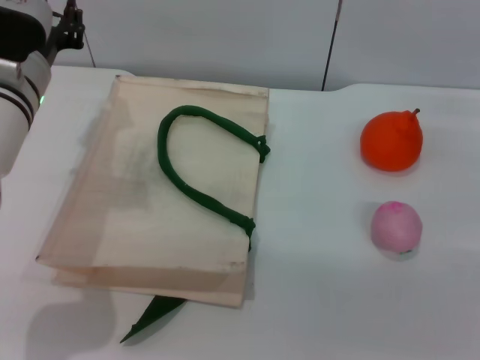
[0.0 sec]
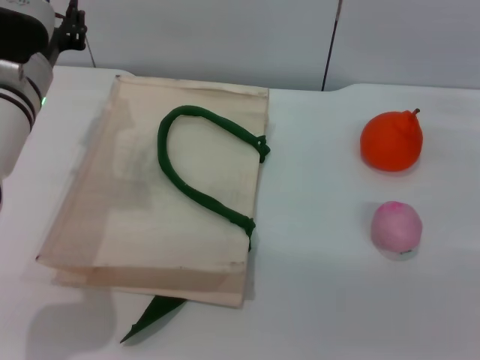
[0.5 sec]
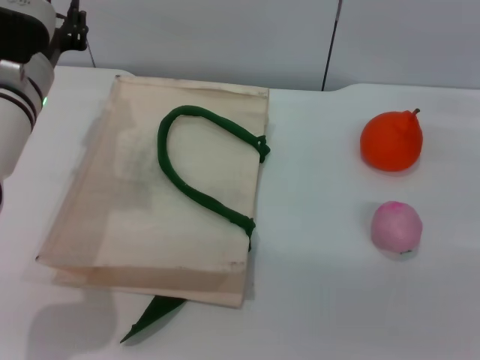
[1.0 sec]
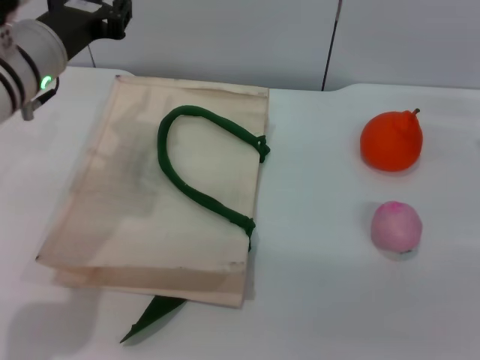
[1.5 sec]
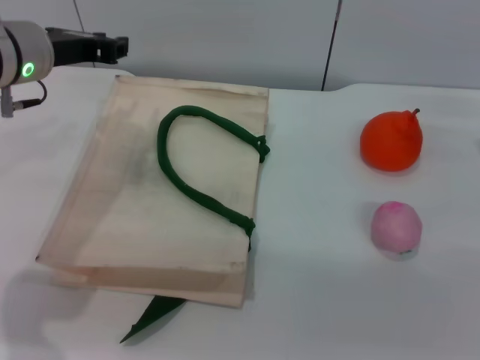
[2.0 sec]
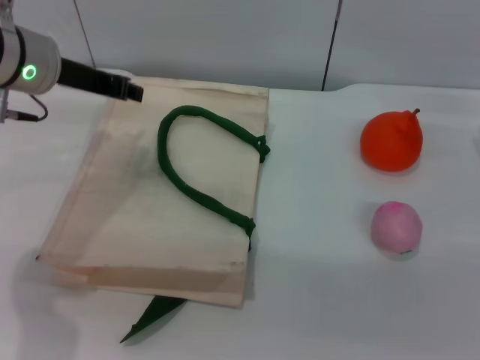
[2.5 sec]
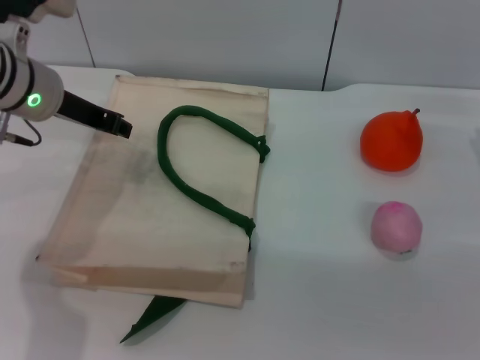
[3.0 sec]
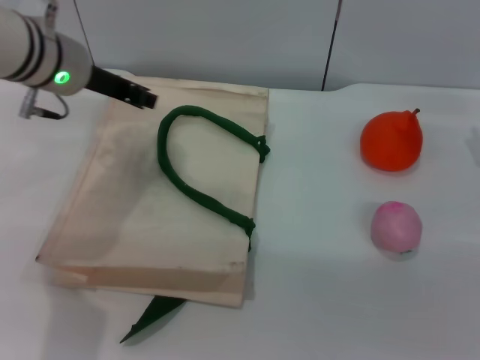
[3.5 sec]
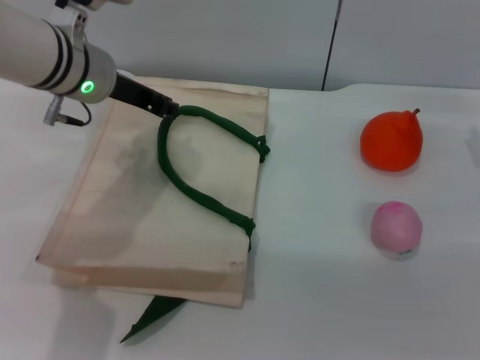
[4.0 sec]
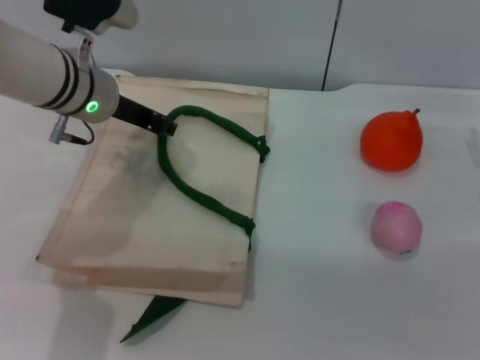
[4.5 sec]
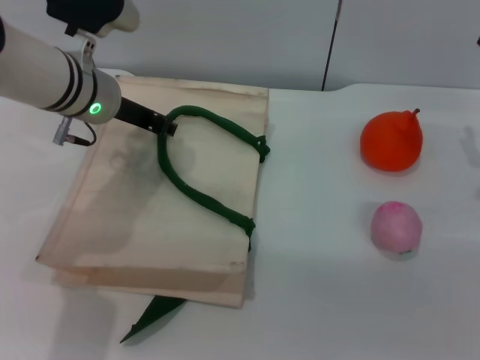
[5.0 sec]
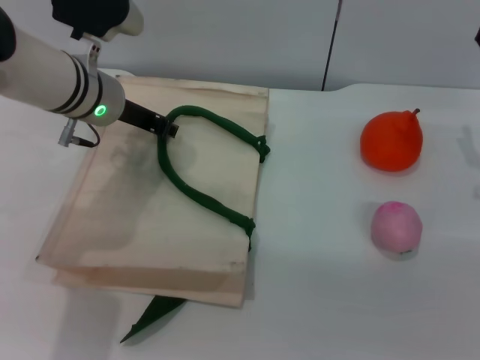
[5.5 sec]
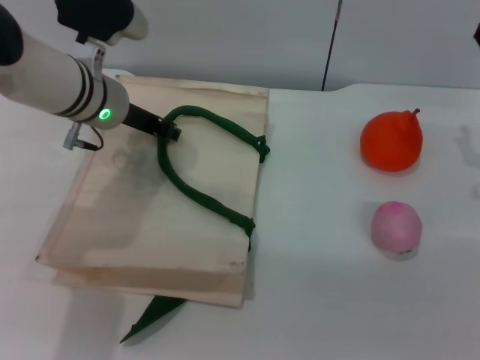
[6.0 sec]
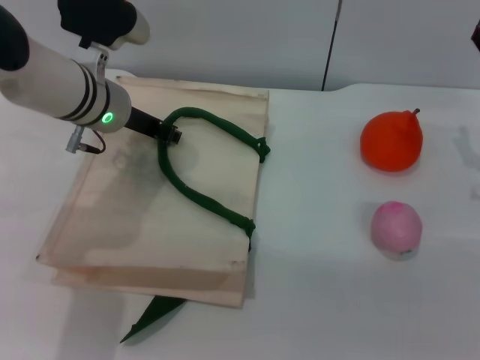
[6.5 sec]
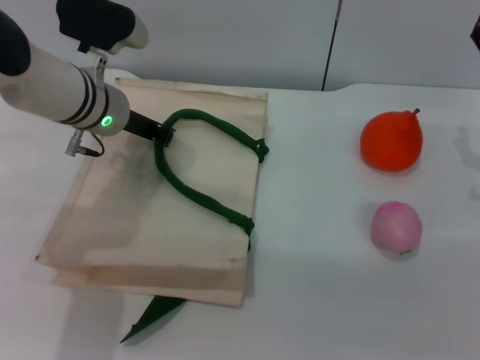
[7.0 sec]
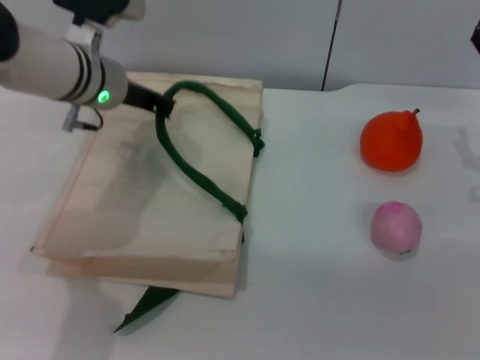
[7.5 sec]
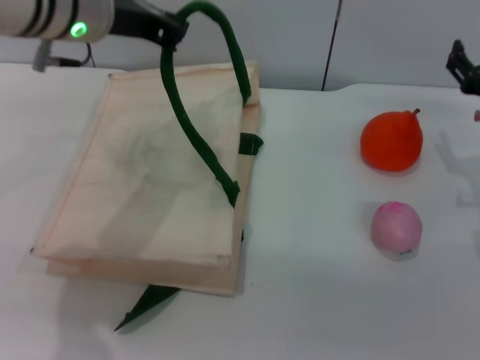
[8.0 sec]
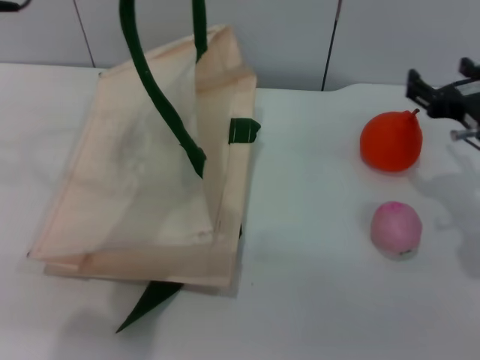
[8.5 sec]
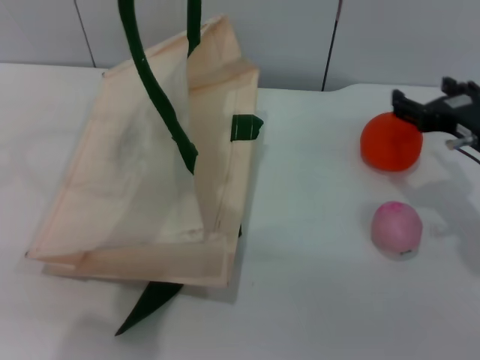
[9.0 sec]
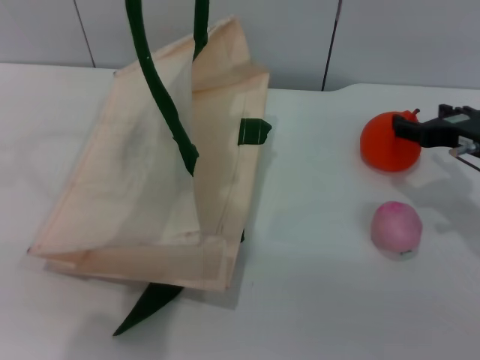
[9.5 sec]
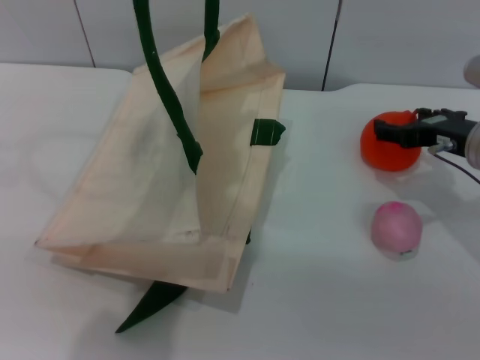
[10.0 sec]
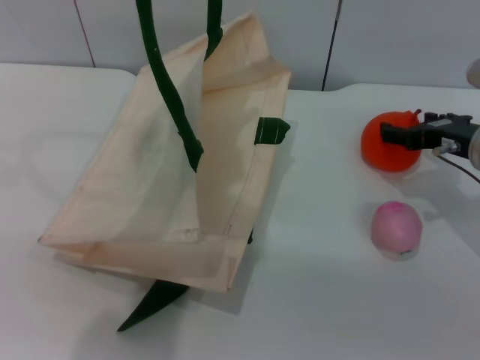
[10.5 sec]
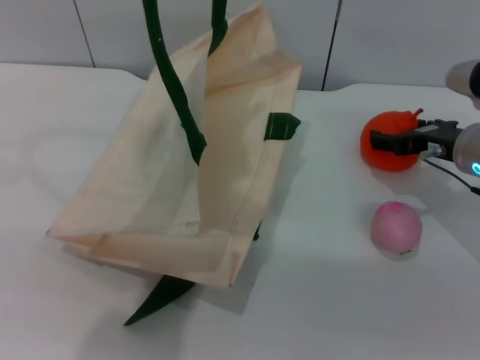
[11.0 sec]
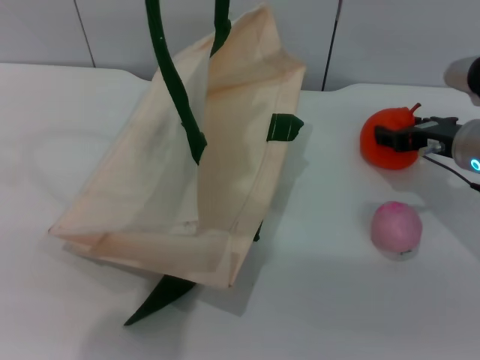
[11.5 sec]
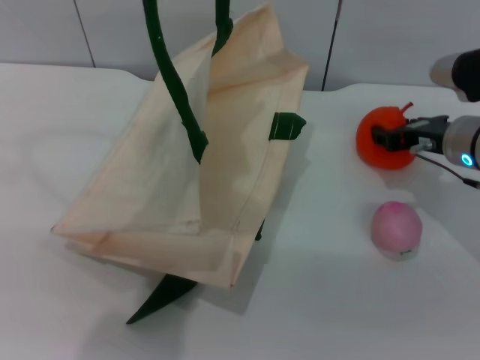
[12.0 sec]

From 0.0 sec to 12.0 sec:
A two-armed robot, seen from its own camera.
Task of the whole recording: pick up the orange and peach from the table and place it in the white handbag.
Step, from 0.0 sec to 7.5 sec: Lift the woven bag with the left gripper to open it.
From 0.0 sec to 2.0 sec: The left gripper shifts about 5 cm upward.
From 2.0 sec to 4.0 sec: The left gripper shifts by approximately 5 cm.
From 4.0 sec to 6.0 sec: The grippers move only a little.
From 6.0 sec to 8.0 sec: The left gripper moves upward, some 10 cm, and closes.
From 8.0 sec to 10.0 sec: The left gripper goes about 10 cm upward and backward.
From 10.0 sec to 12.0 sec: The right gripper closes.

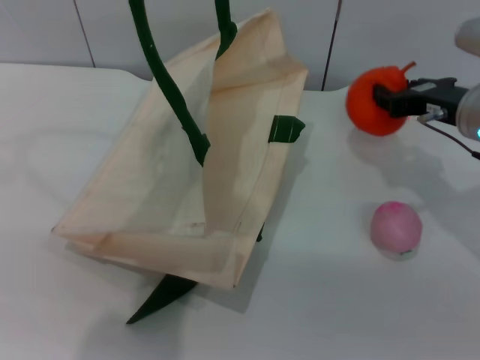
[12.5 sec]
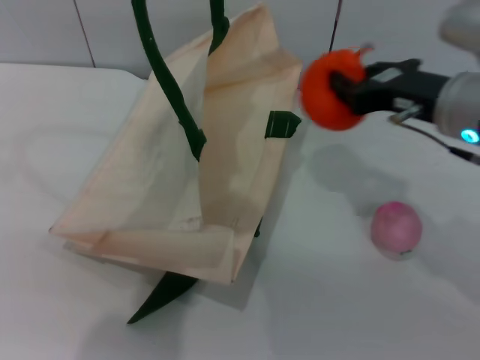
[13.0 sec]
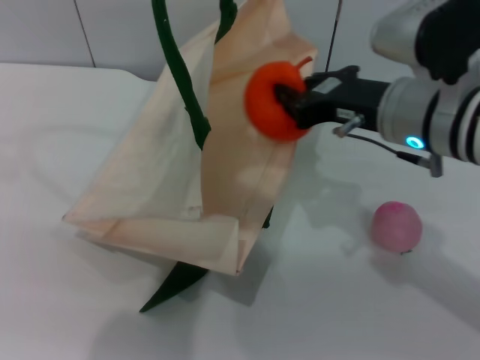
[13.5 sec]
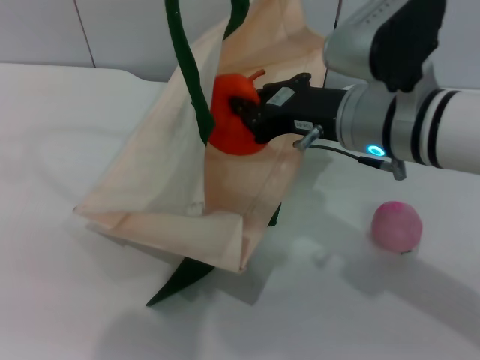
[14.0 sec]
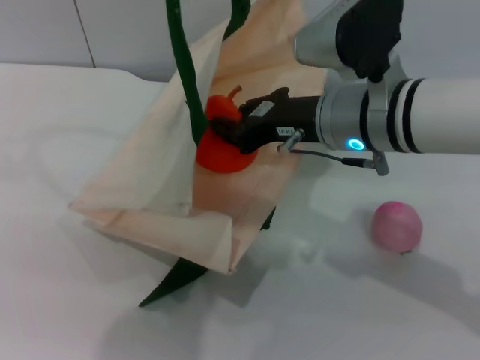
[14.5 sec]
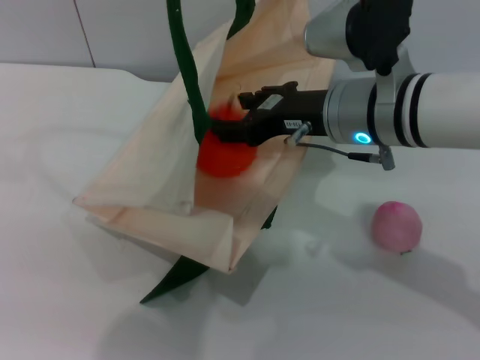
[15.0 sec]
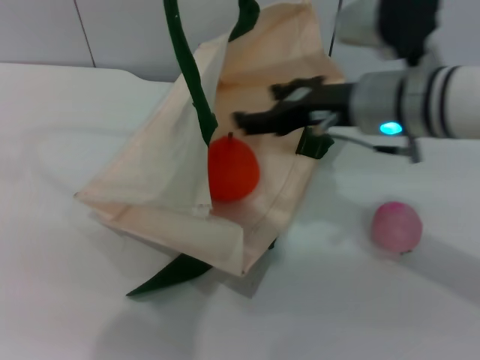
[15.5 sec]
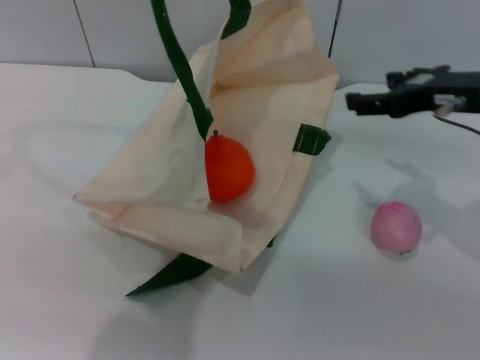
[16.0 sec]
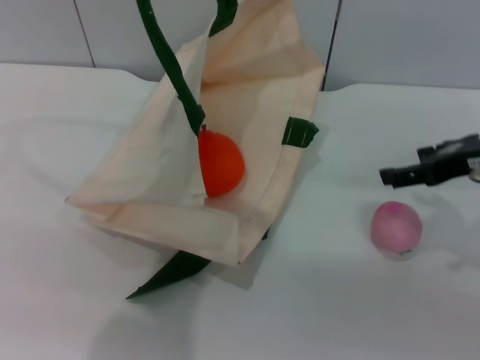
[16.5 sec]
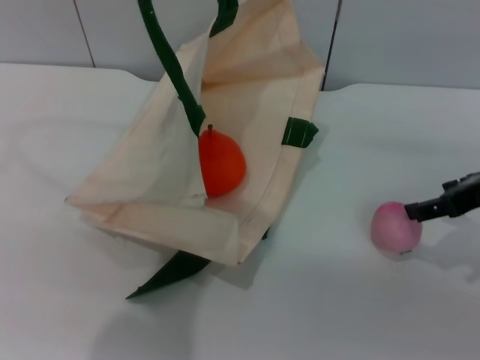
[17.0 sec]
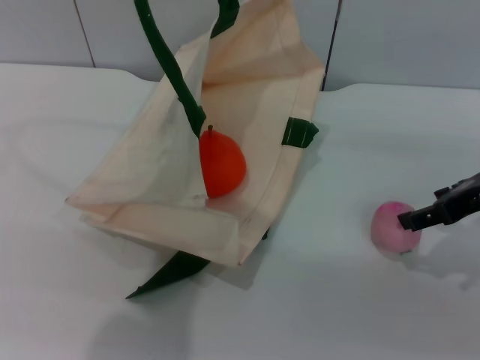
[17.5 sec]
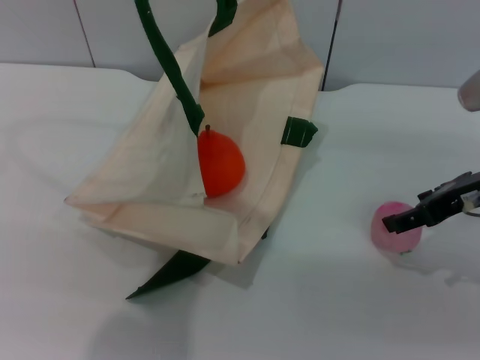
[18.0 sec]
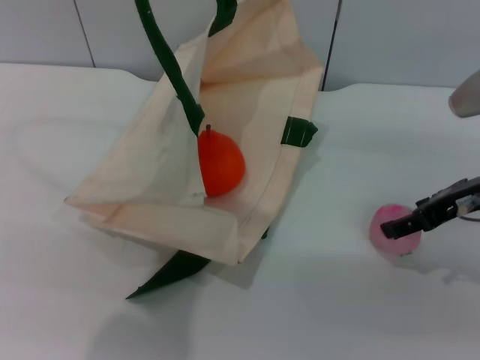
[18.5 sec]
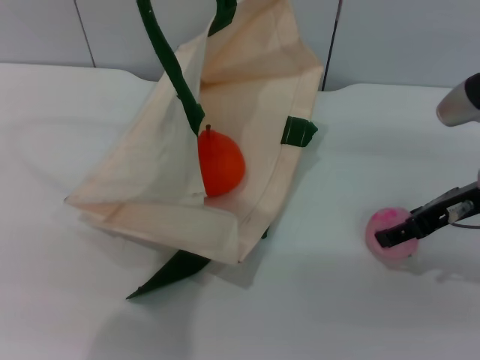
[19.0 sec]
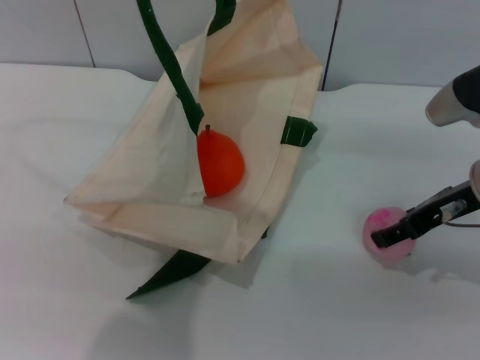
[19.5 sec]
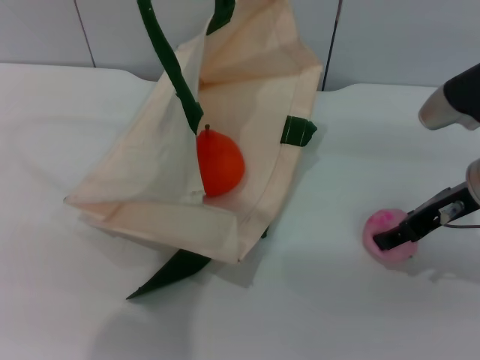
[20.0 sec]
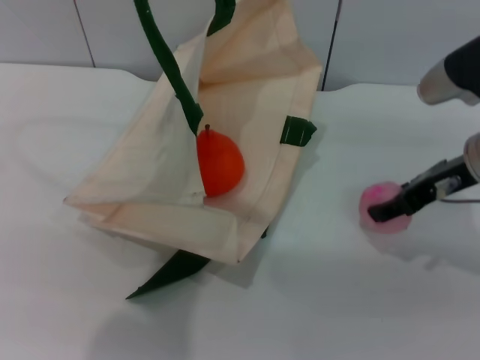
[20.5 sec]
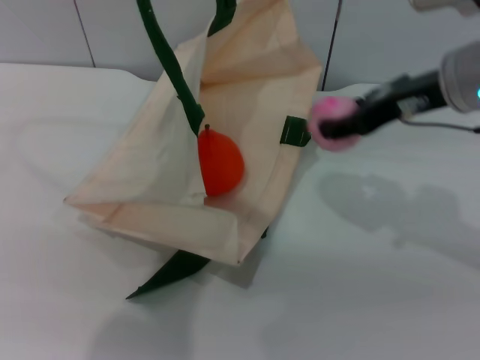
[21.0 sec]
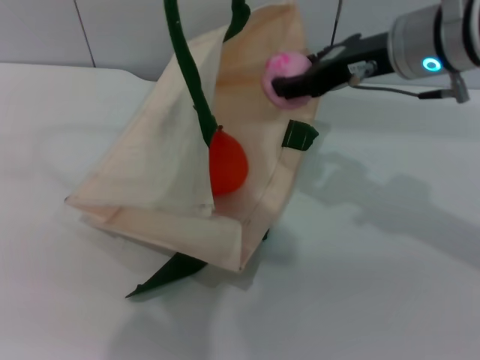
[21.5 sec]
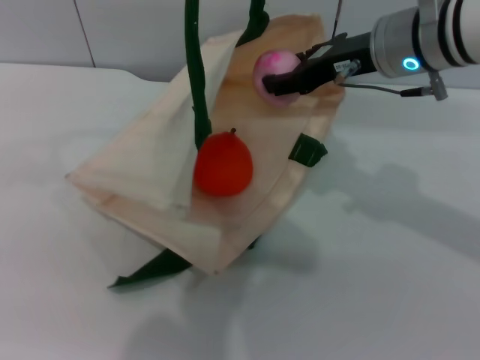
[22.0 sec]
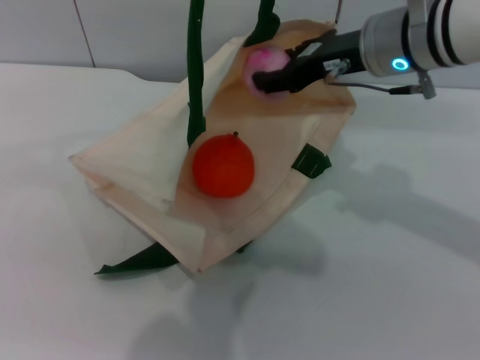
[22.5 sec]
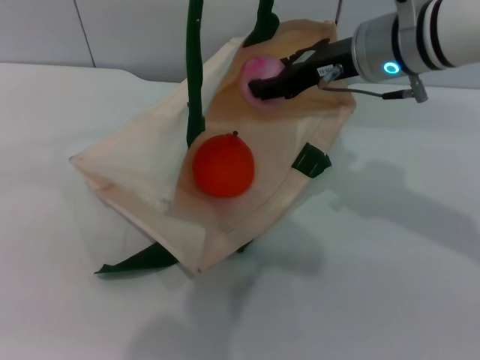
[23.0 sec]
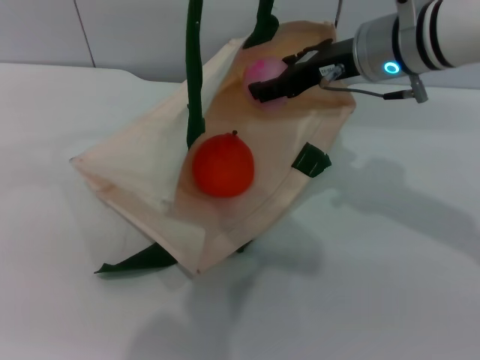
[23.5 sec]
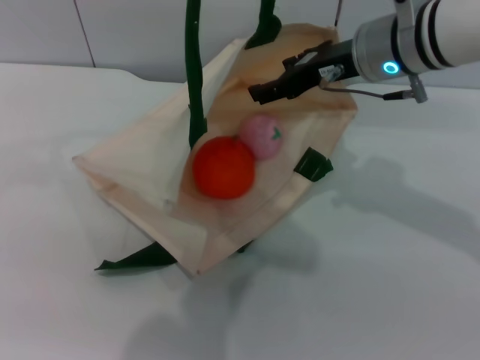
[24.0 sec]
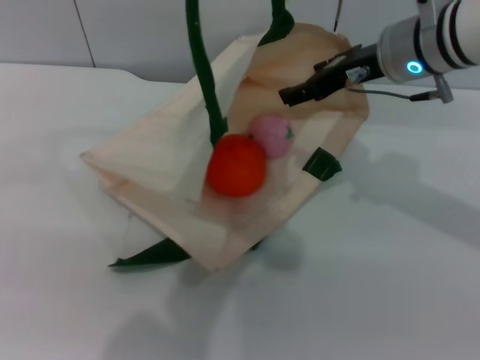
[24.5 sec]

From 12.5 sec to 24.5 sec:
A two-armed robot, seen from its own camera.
Task of the whole recording: pick up the orange and peach from the table and place it in the white handbag.
Step, from 13.0 sec to 15.0 sec: Place the orange into the woven bag with the right gripper.
Step, from 15.5 sec to 20.5 sec: Pick up the peach with the right gripper.
Step, from 21.0 sec to 23.5 sec: Place the peach into the woven bag with the right gripper.
From 12.5 sec to 14.5 sec: The right gripper shifts some 15 cm to the left, and closes.
From 14.5 sec to 16.5 sec: The right gripper heads to the right, covering about 15 cm, and opens its fingers.
From 16.5 sec to 18.5 sec: The grippers stay close to where they were, moving slightly.
From 18.5 sec to 20.5 sec: The grippers stay close to where they were, moving slightly.
From 20.5 sec to 22.5 sec: The left gripper moves to the right, some 5 cm. The right gripper heads to the left, forward and upward, covering approximately 10 cm.
From 22.5 sec to 24.5 sec: The grippers stay close to where they were, moving slightly.

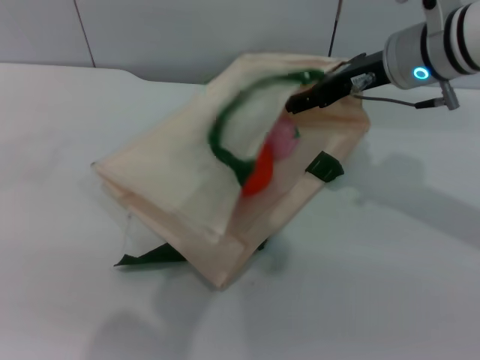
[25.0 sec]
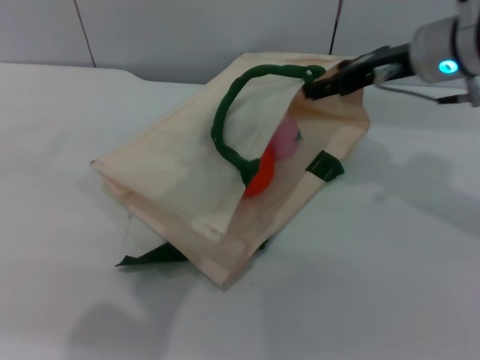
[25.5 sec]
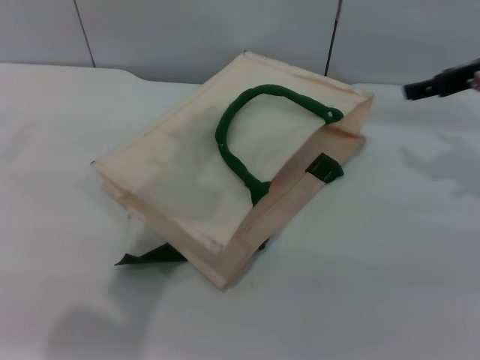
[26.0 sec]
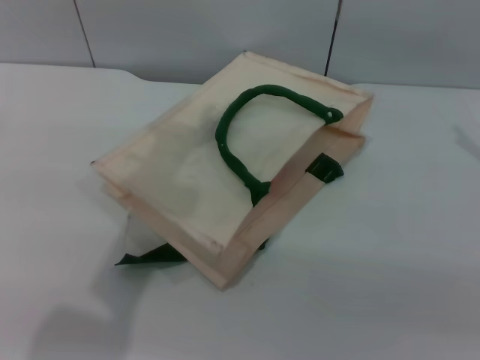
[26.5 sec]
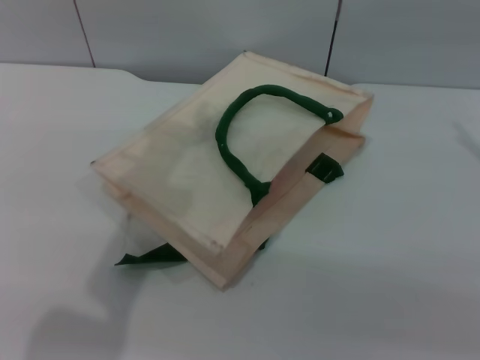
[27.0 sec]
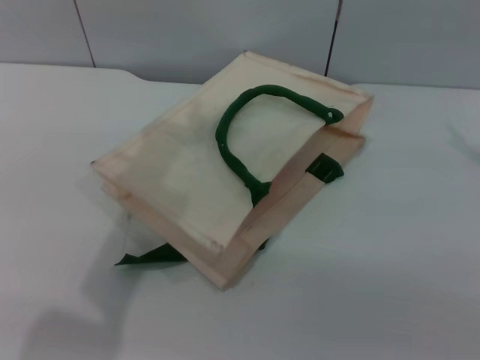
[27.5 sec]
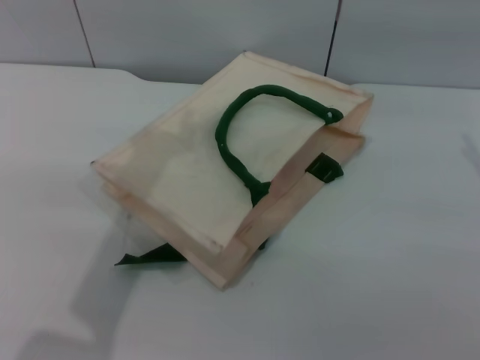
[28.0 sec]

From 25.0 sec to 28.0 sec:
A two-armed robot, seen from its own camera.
Task of the whole recording: pick up the orange and peach from the table and place it in the white handbag.
From 25.0 sec to 26.5 sec: The right gripper heads to the right and upward, covering some 15 cm, while the left gripper is displaced to the left by approximately 5 cm, and opens its fingers.
